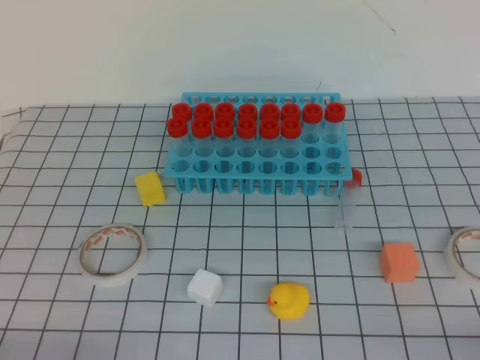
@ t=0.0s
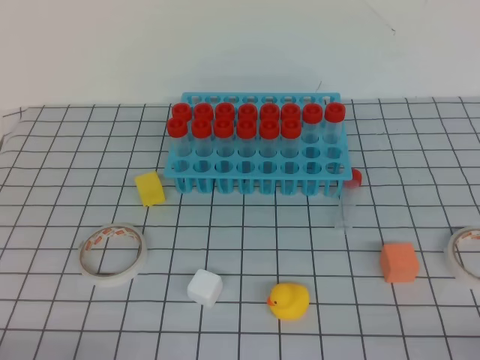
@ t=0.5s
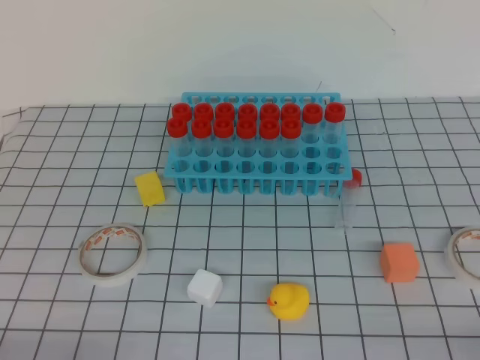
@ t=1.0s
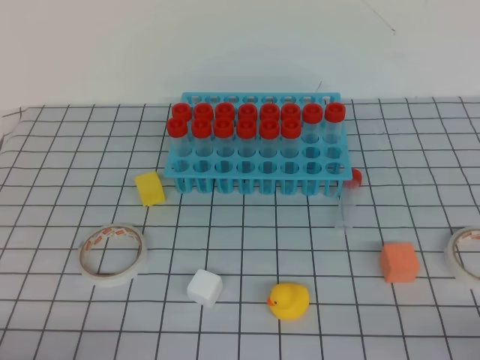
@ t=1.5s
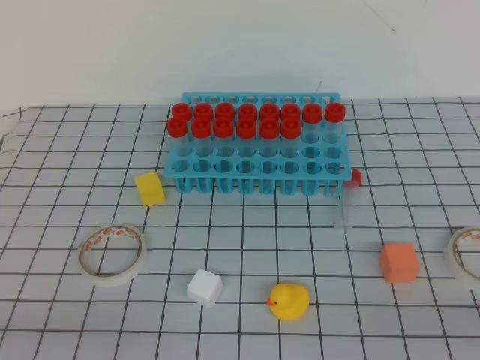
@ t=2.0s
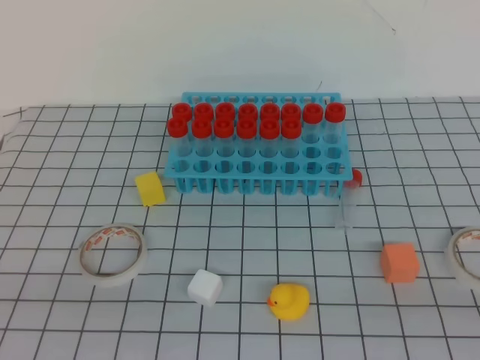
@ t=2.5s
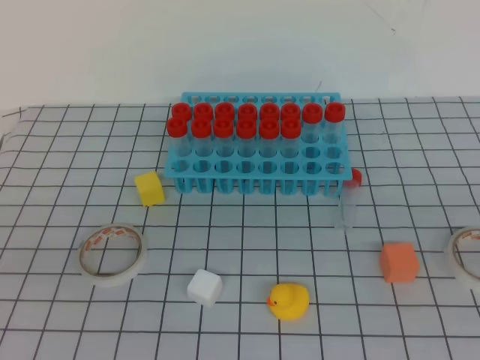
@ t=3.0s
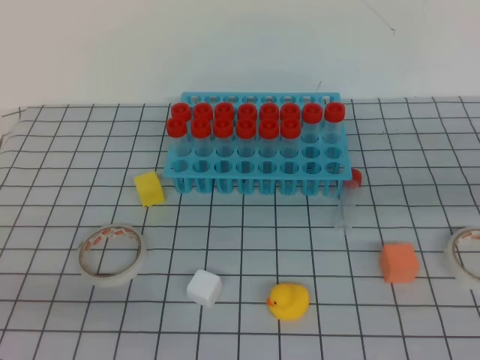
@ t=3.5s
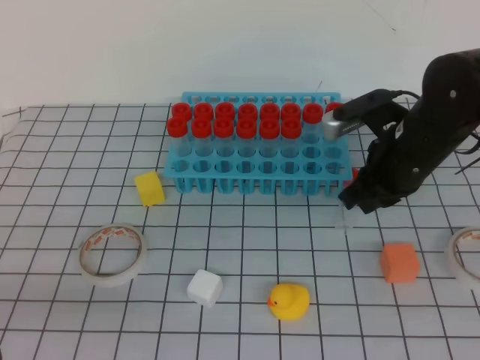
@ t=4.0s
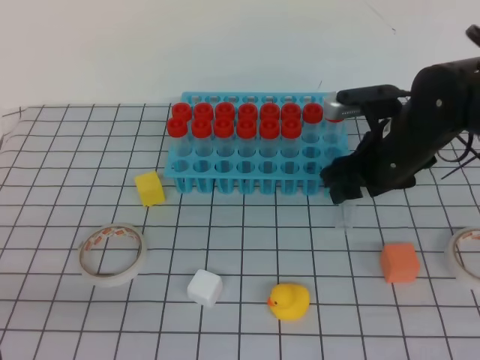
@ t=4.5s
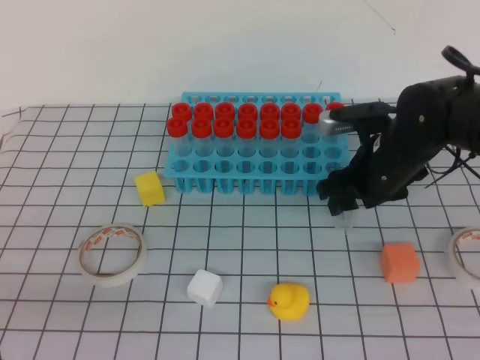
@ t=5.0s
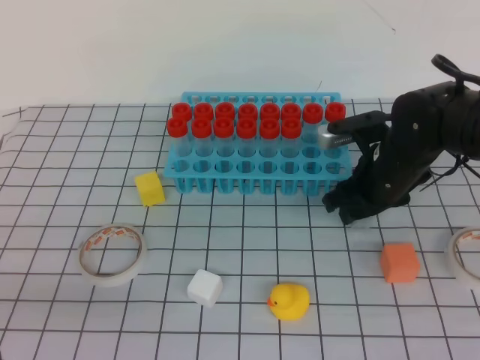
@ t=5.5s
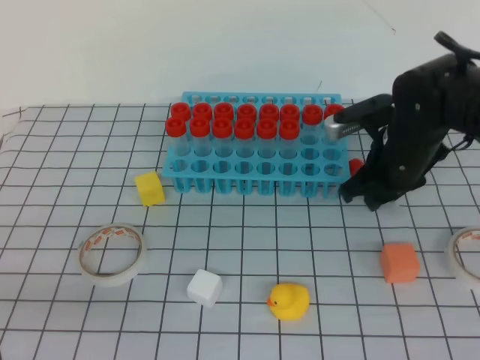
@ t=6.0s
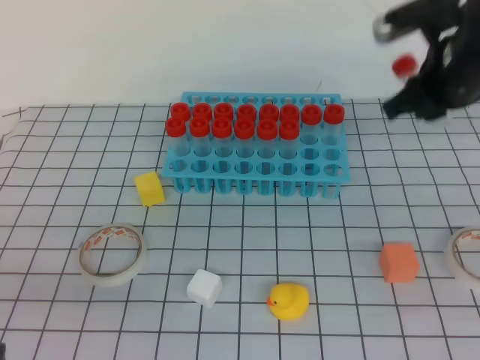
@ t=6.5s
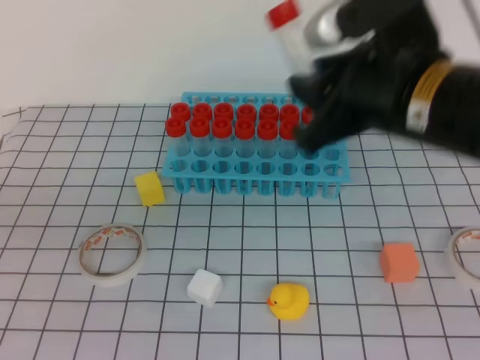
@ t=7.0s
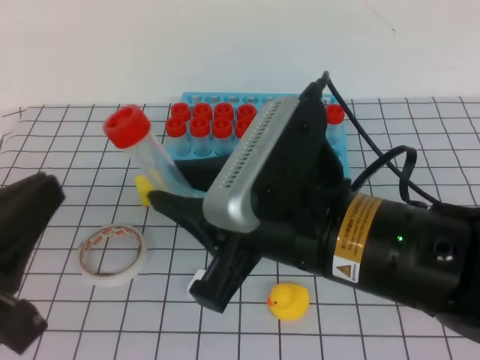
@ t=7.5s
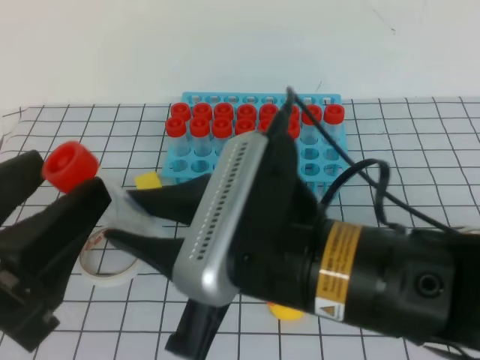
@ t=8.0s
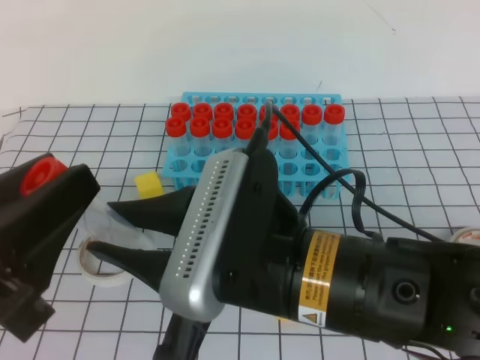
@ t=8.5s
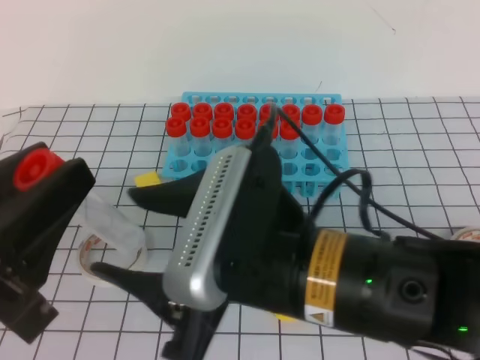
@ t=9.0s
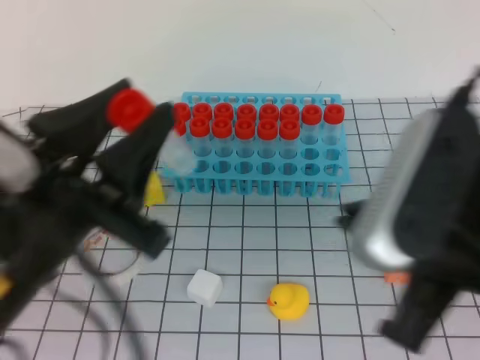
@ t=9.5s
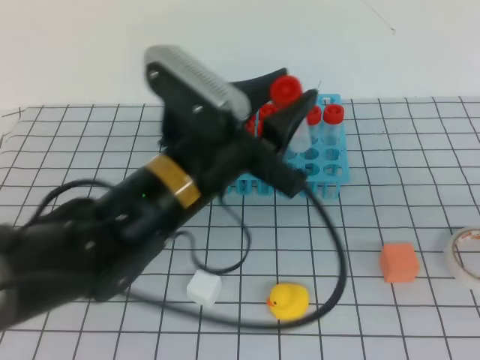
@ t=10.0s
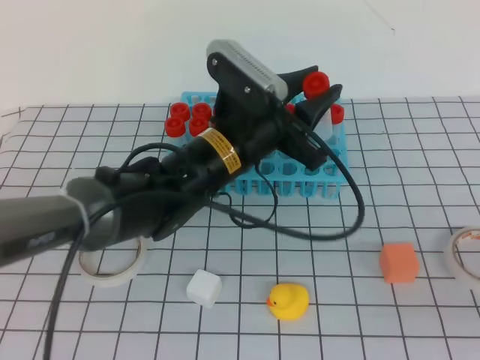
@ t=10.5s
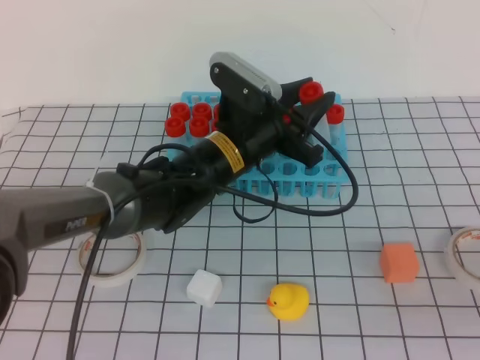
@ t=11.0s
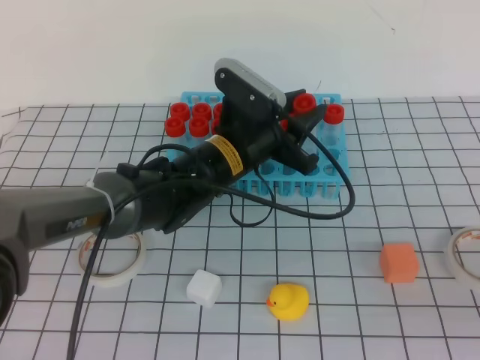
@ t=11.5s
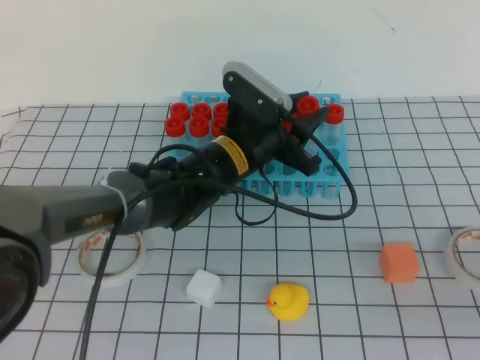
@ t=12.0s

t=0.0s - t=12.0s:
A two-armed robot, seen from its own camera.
t=2.0s - t=4.0s: The right gripper goes some 35 cm forward and to the left.
t=4.0s - t=6.0s: The right gripper opens, then closes again.
t=6.0s - t=8.0s: The left gripper shifts about 10 cm upward and to the right, and opens its fingers; the right gripper goes about 30 cm backward, to the left and upward.
t=8.0s - t=10.0s: The left gripper heads forward and to the right, covering approximately 20 cm; the right gripper shifts about 20 cm to the right, and closes.
t=10.0s - t=12.0s: The right gripper moves downward, some 5 cm. The left gripper is displaced forward and downward by about 15 cm.

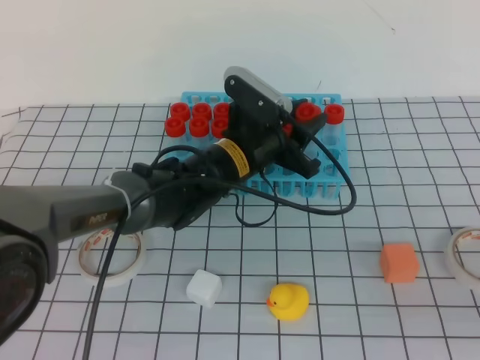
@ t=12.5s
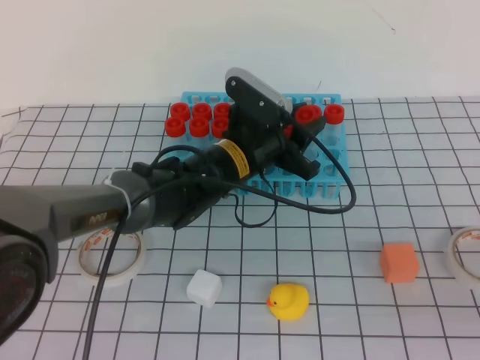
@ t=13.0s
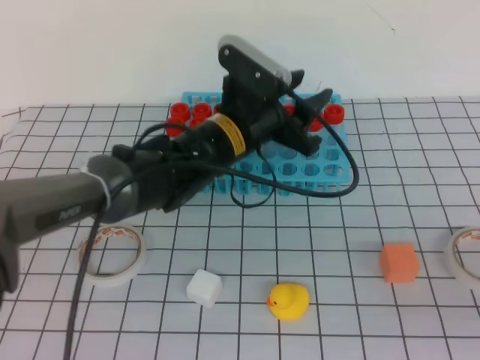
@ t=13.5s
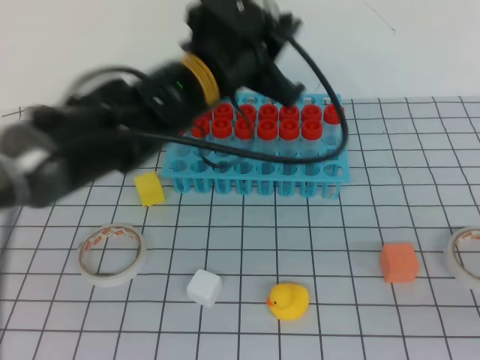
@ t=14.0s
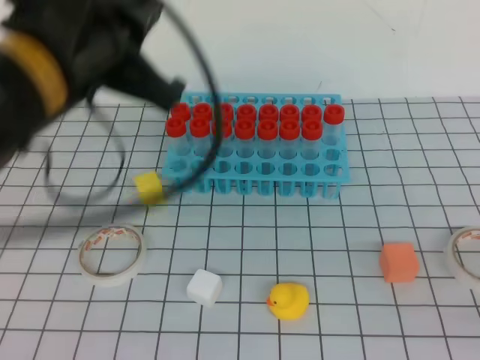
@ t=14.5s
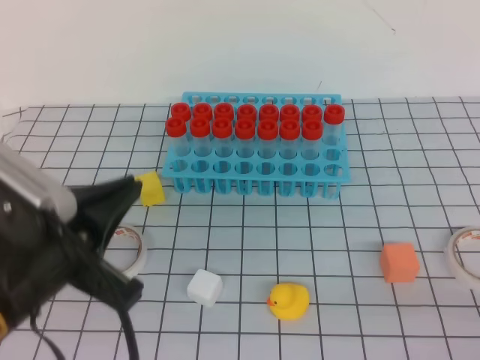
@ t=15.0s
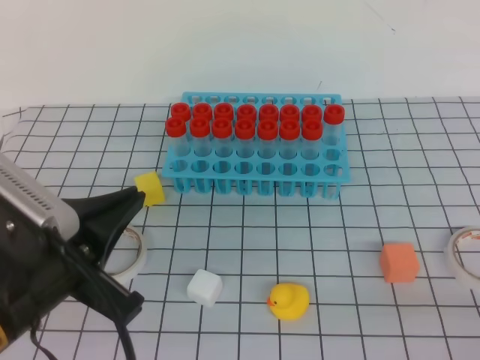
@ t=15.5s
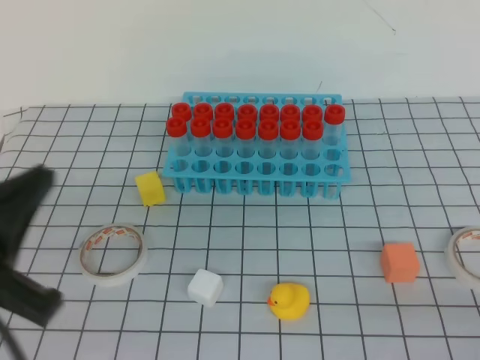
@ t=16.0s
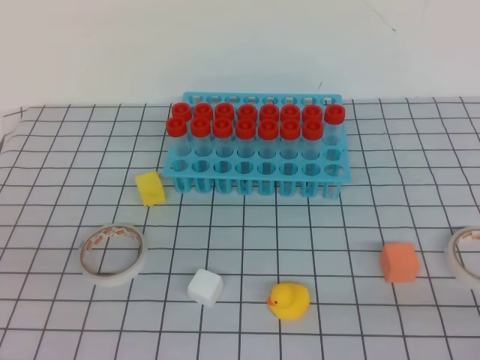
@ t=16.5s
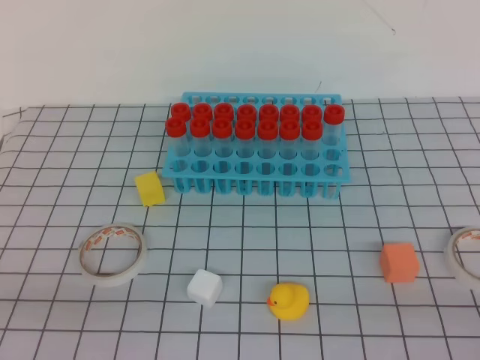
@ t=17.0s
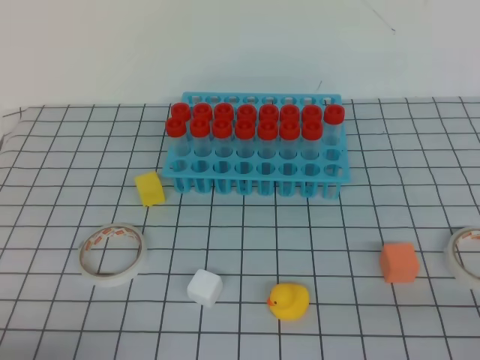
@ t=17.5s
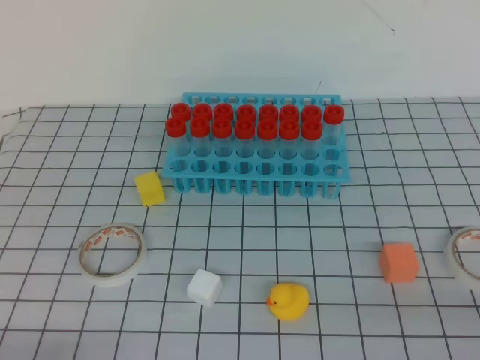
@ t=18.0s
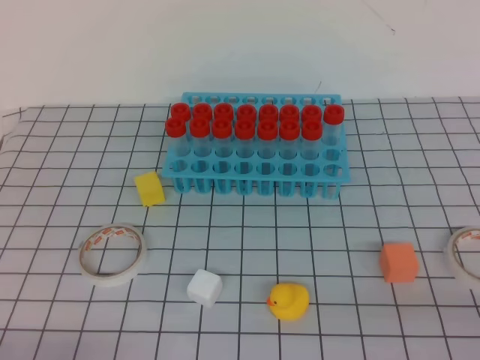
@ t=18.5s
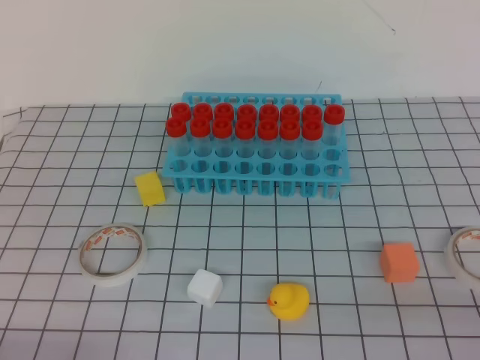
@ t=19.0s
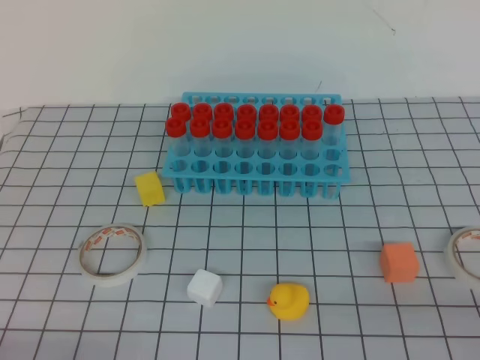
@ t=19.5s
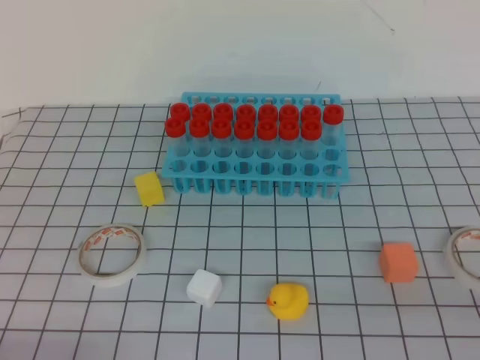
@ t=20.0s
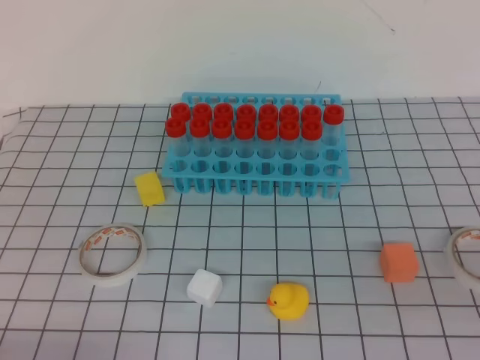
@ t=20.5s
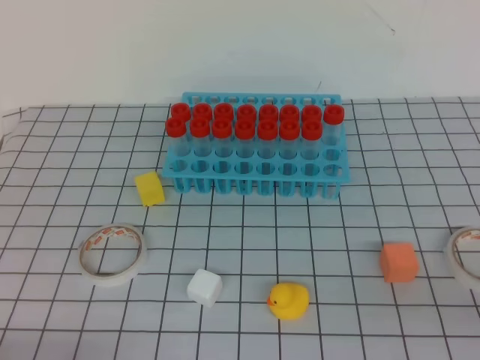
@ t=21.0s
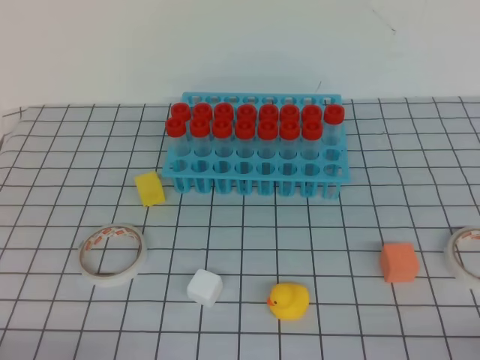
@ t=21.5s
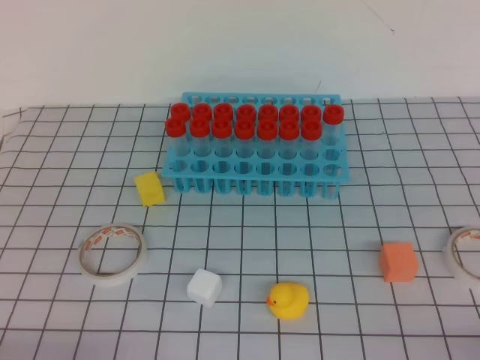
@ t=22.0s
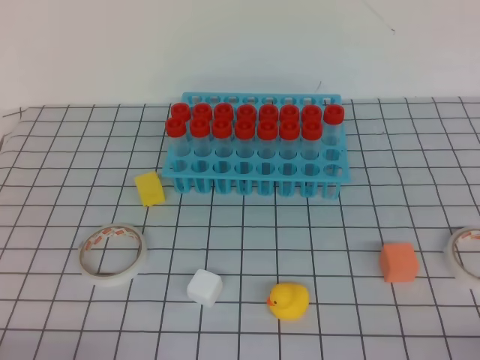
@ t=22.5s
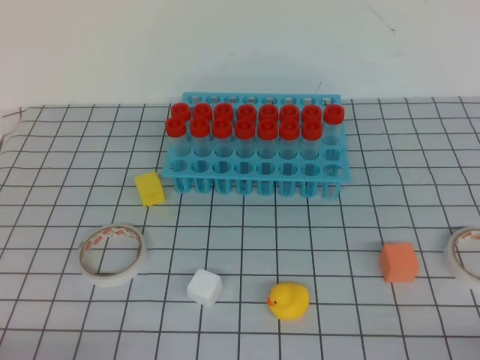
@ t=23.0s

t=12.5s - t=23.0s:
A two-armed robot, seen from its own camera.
t=12.5s - t=14.5s: The left gripper heads upward, backward and to the left, covering approximately 25 cm, and closes.
t=14.5s - t=16.5s: The left gripper moves backward, to the left and downward, approximately 25 cm. Meanwhile the right gripper shifts by about 5 cm.
t=16.5s - t=19.0s: The left gripper shifts about 15 cm downward.
